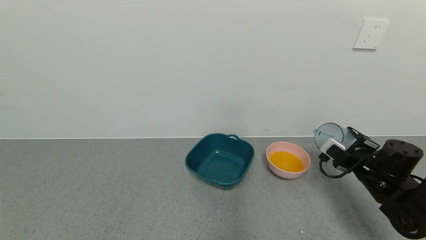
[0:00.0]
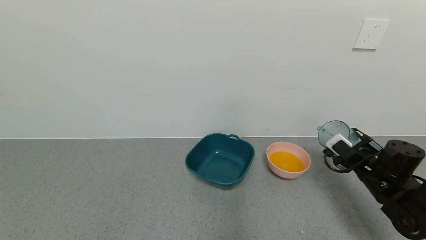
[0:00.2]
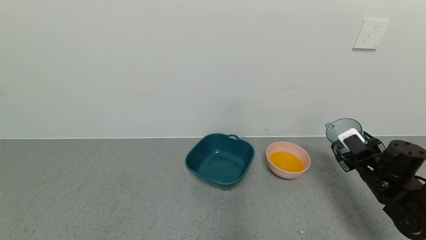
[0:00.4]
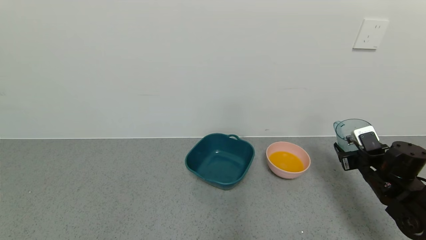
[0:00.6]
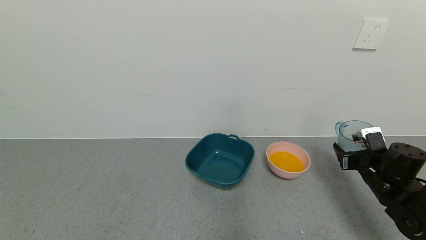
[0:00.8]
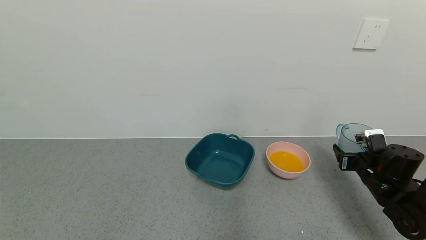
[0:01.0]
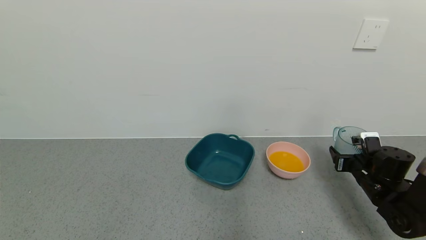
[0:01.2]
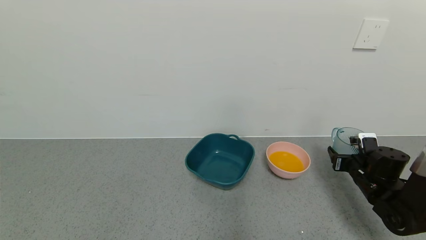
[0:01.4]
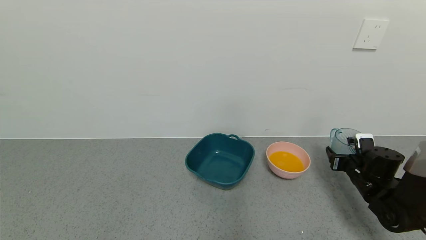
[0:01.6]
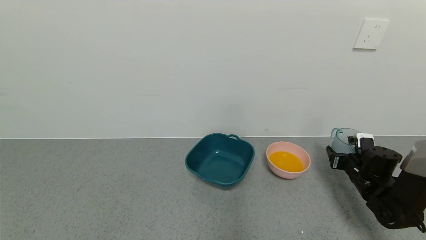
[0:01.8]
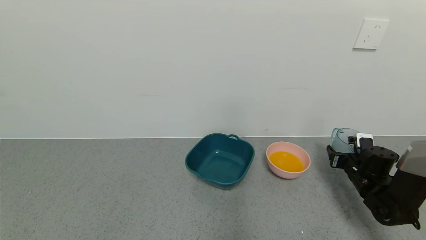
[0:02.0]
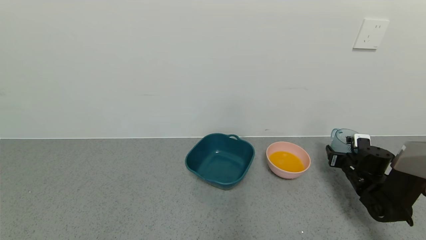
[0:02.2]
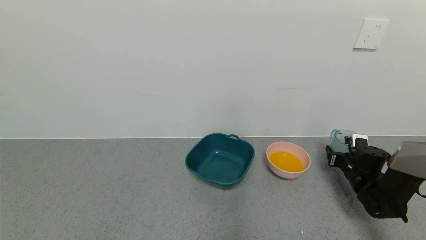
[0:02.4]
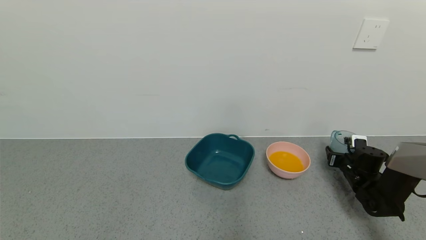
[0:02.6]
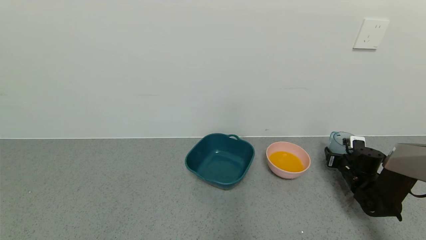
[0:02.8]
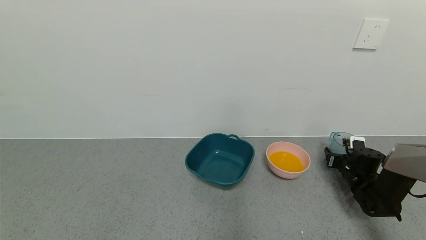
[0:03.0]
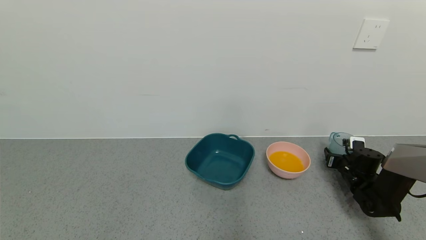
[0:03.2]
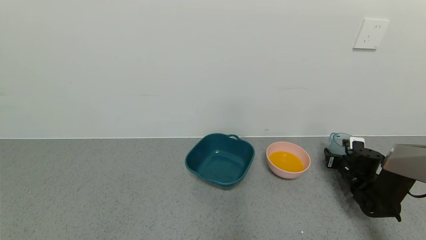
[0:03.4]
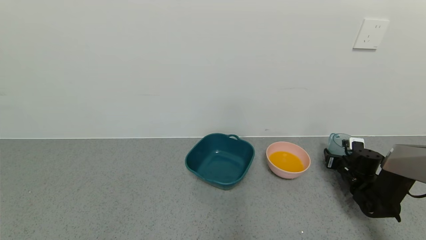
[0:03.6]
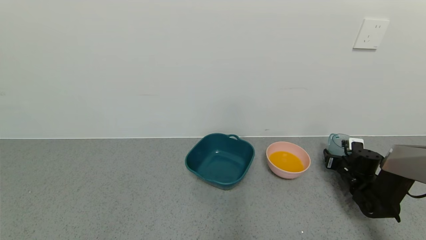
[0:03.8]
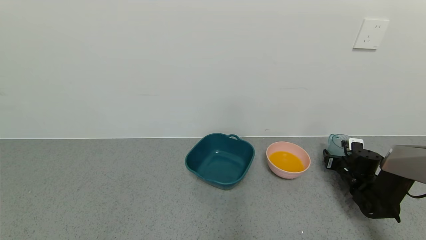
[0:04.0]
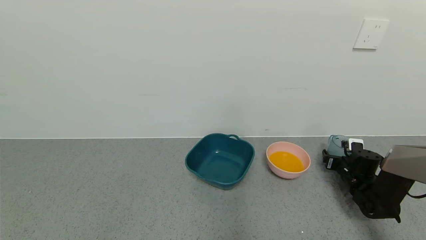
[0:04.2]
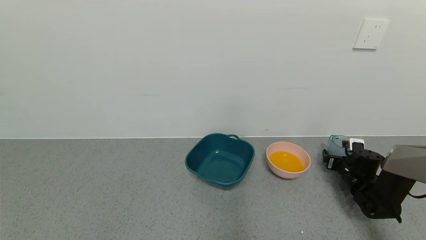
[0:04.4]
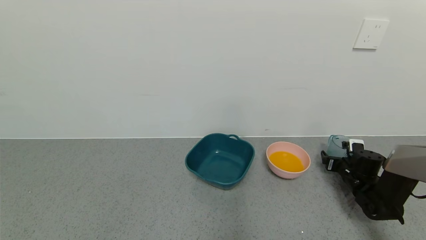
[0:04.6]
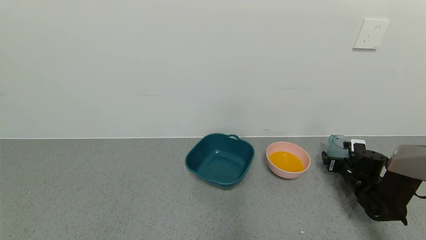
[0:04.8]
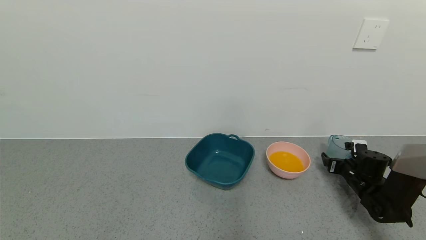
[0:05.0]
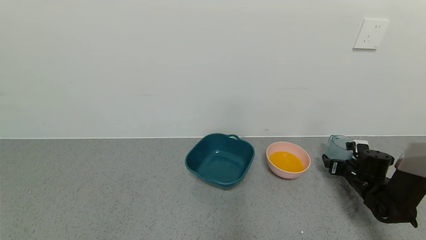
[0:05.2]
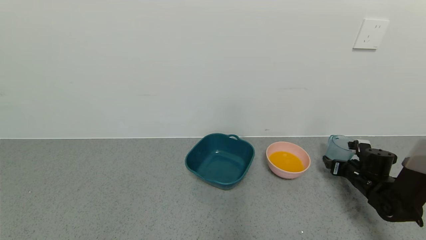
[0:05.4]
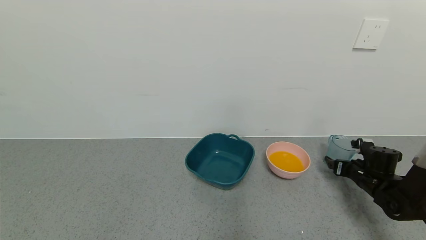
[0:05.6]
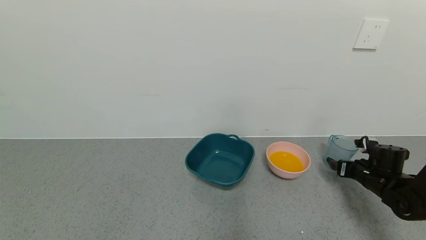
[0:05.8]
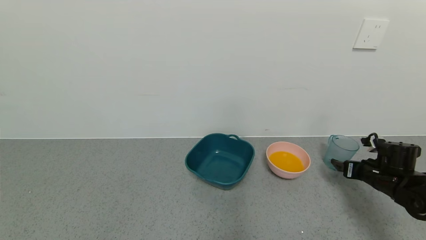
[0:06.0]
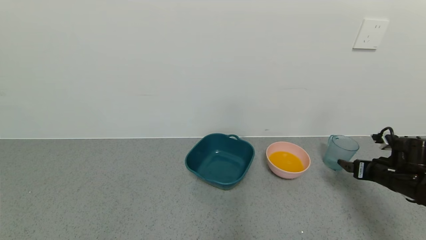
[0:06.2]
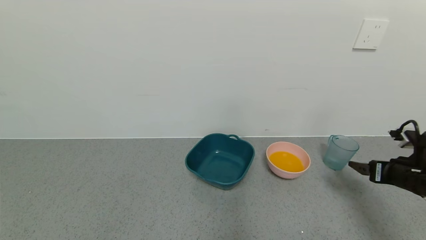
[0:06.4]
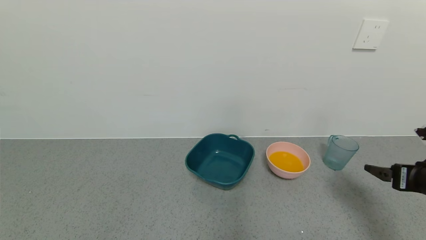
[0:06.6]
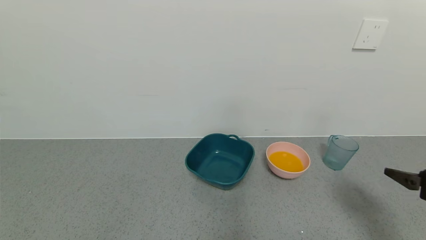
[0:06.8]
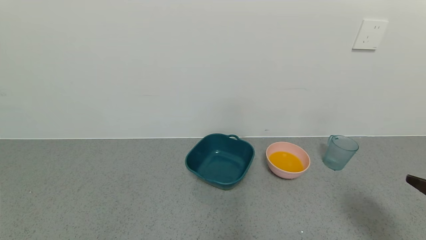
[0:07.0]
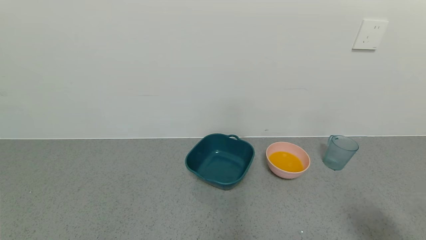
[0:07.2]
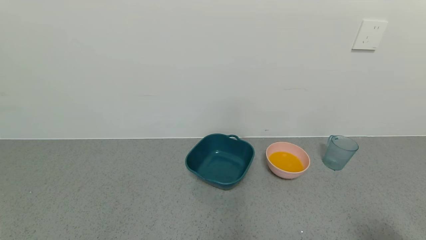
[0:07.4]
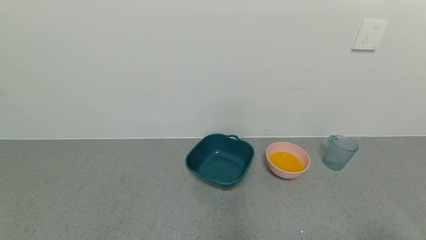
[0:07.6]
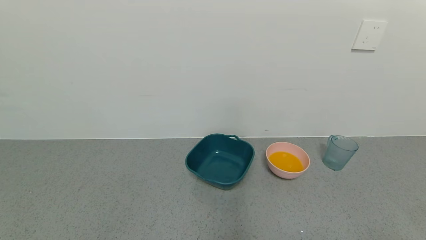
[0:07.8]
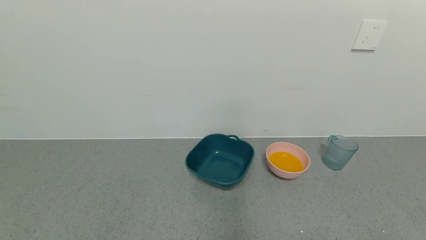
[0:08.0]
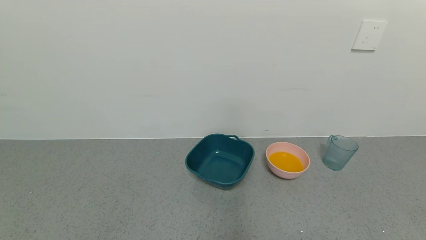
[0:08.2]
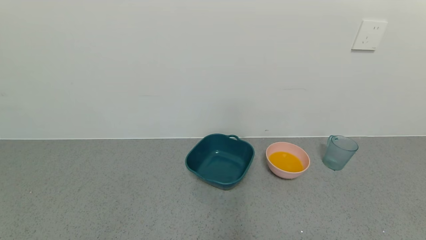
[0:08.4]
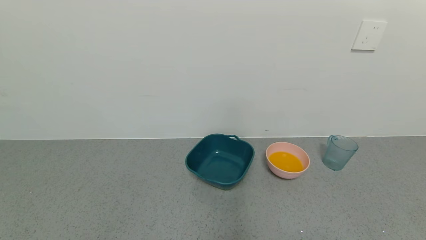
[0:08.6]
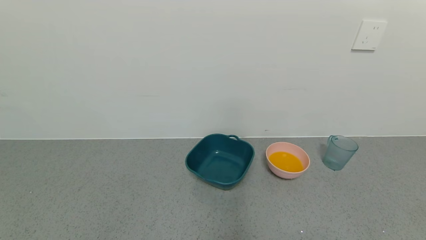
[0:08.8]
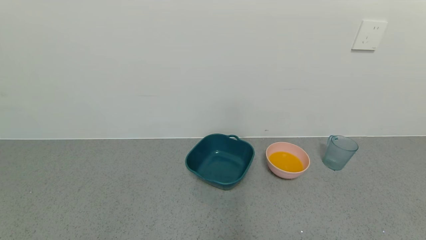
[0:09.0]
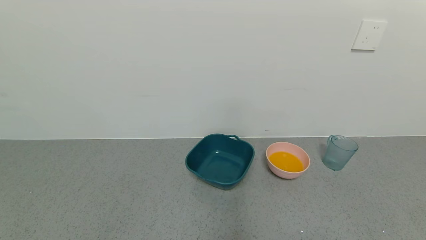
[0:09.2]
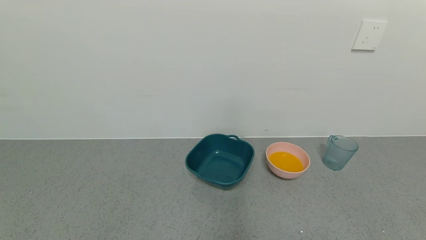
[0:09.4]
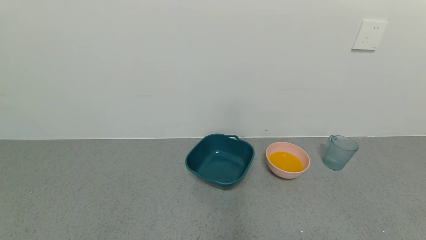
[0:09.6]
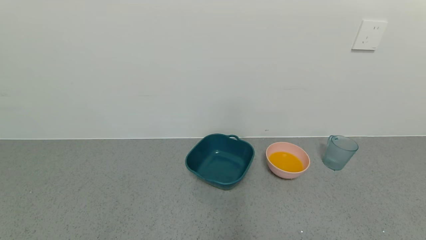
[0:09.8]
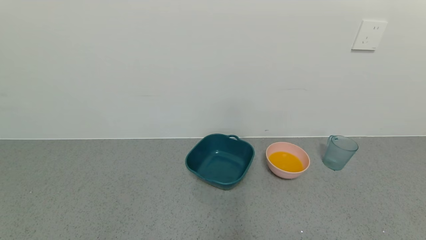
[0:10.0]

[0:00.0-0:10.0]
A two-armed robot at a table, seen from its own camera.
Task of the whole recording: use a gripper to pick up the cup and pour the liquid into a bowl or tray.
Step, 0:00.0 to 0:06.0: Place the glass cup with the right gripper.
0:01.4 to 0:02.8: The right gripper moves forward and downward, some 10 cm.
0:02.8 to 0:04.2: The right gripper opens its fingers.
0:04.2 to 0:05.8: The right gripper travels backward and upward by about 10 cm, and opens.
0:05.8 to 0:07.2: The right gripper shifts some 35 cm backward and upward.
0:07.2 to 0:08.6: The right gripper travels backward by roughly 15 cm.
